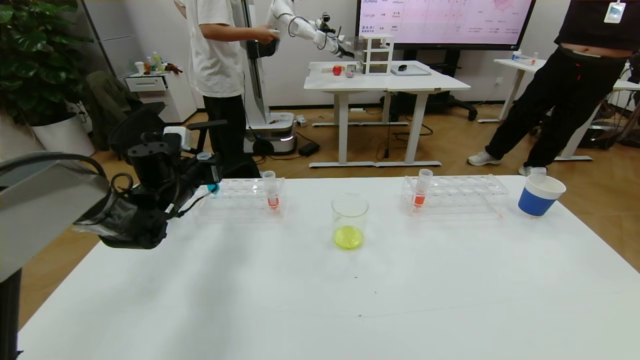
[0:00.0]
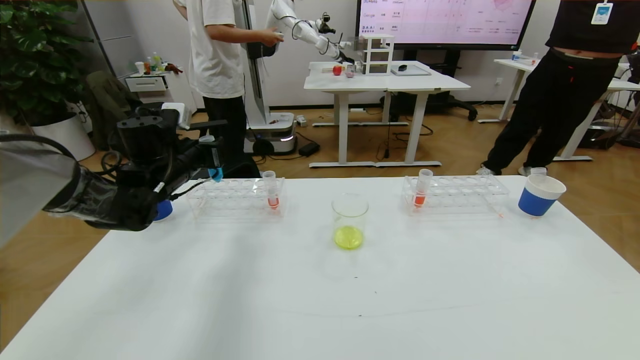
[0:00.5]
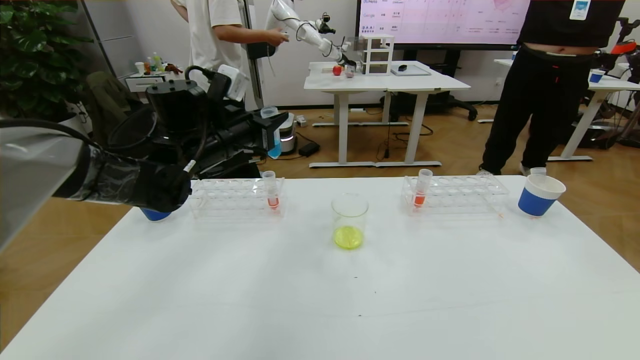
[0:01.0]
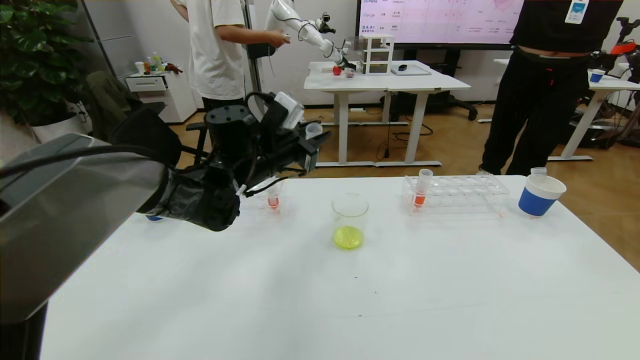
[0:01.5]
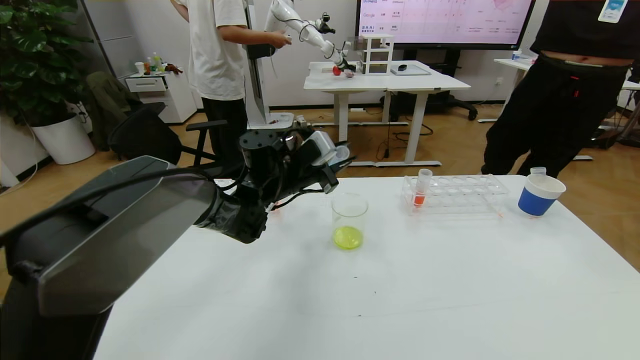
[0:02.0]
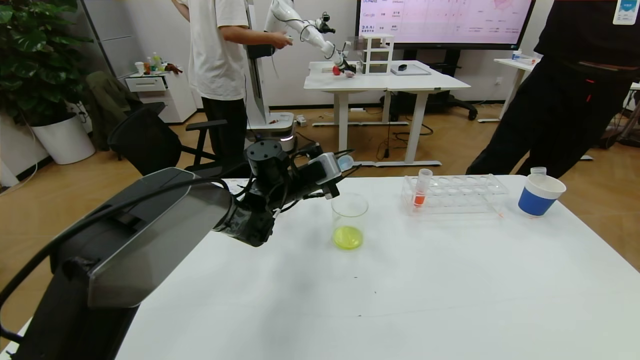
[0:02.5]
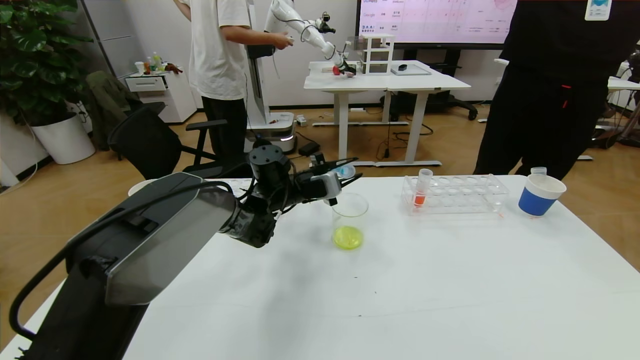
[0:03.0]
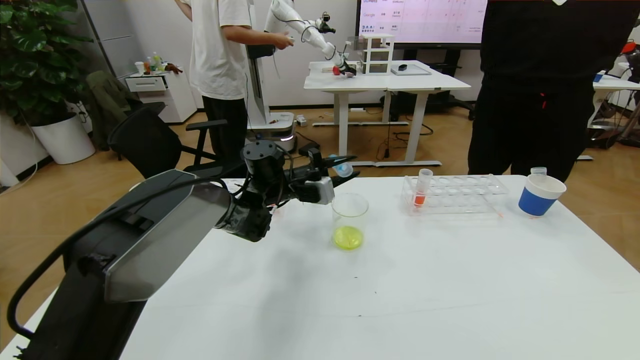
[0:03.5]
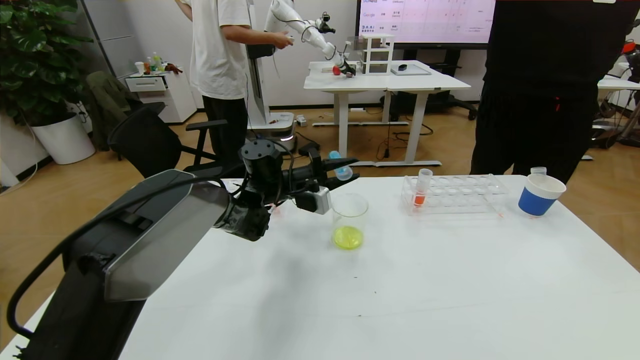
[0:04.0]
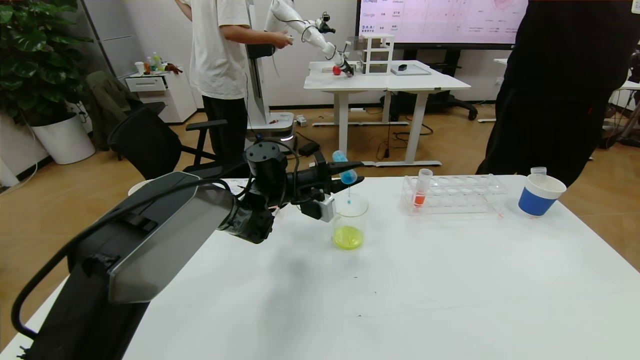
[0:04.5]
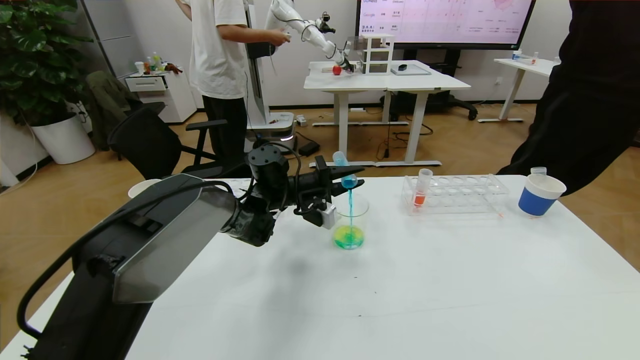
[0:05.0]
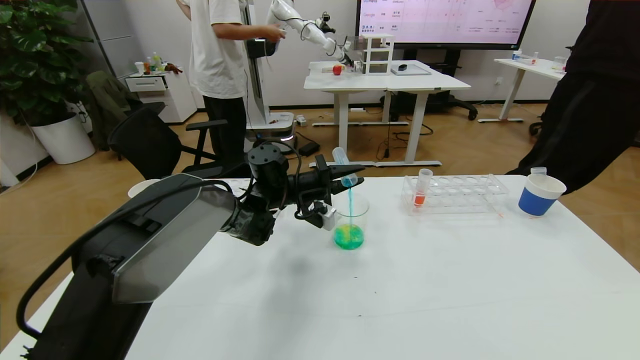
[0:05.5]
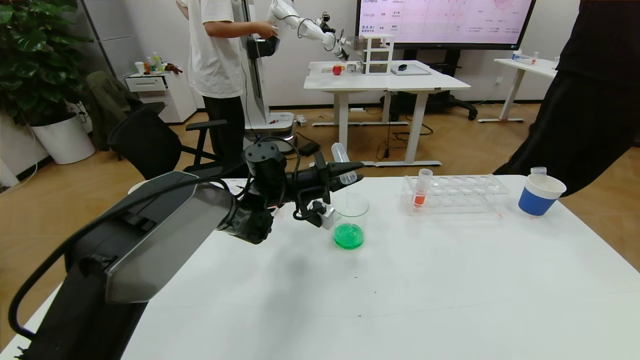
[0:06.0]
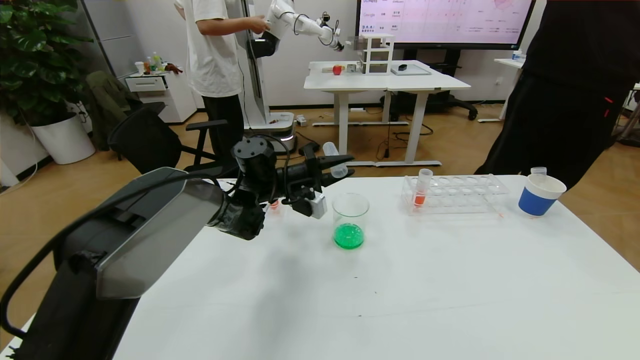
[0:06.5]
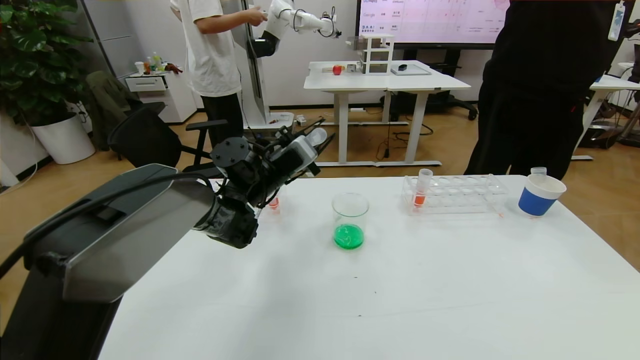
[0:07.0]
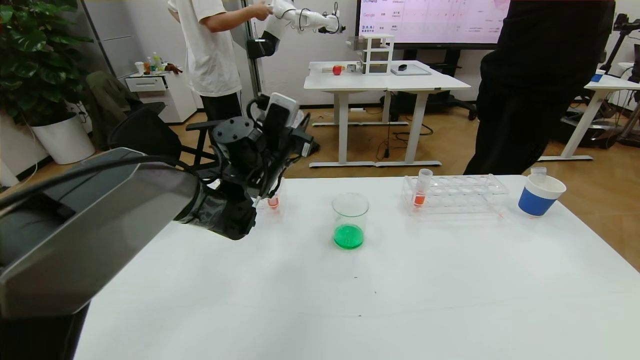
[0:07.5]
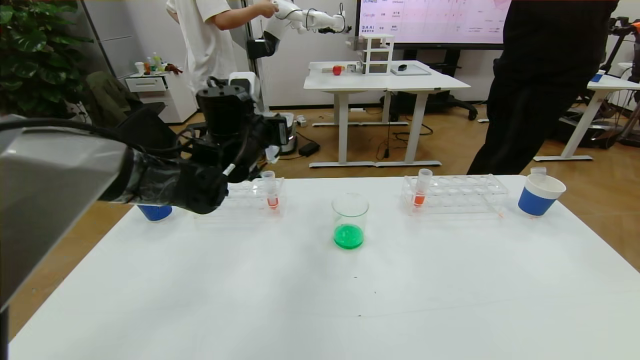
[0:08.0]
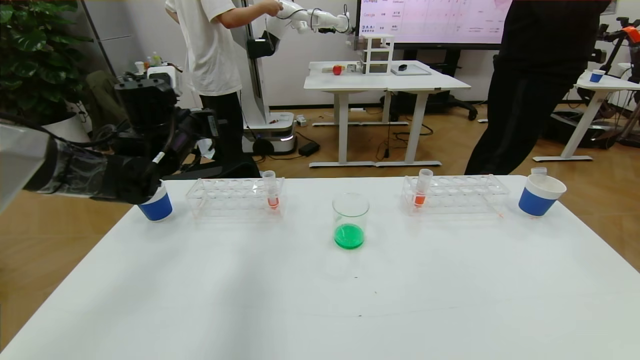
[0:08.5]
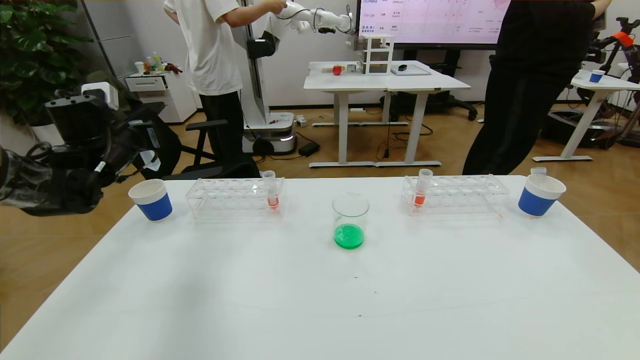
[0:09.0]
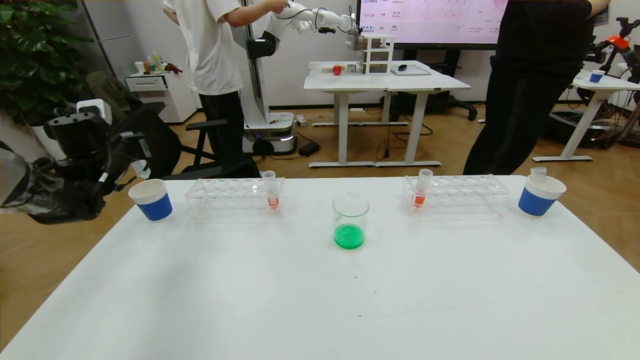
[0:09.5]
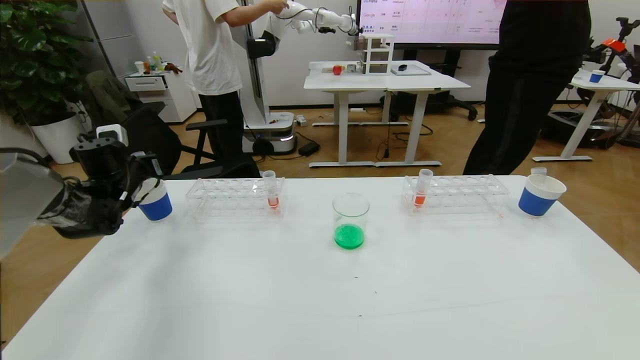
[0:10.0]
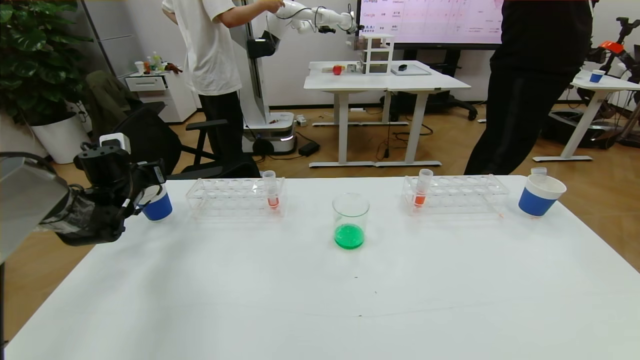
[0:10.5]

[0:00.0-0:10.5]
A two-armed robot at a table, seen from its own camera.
Task of the whole recording: pick up the test tube with yellow pigment and the test tube with blue pigment by grippers and pour them into the beaker.
0:00.0 to 0:02.0: The left gripper moves to the right, approximately 20 cm.
0:04.0 to 0:06.5: The grippers move only a little.
0:06.5 to 0:08.5: The left gripper heads to the left and upward, covering roughly 20 cm.
0:08.5 to 0:10.5: The left gripper travels to the left and downward by about 20 cm, and opens up.

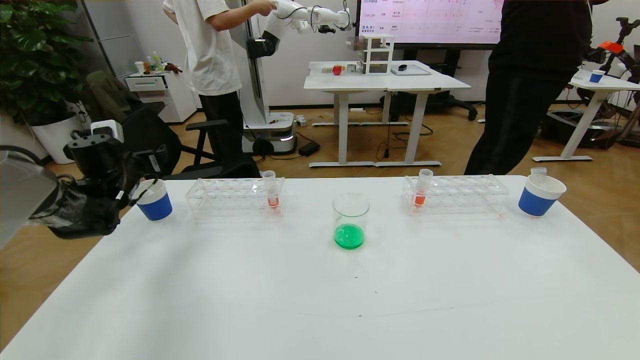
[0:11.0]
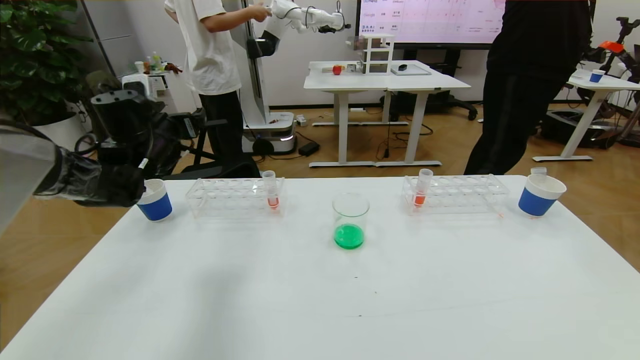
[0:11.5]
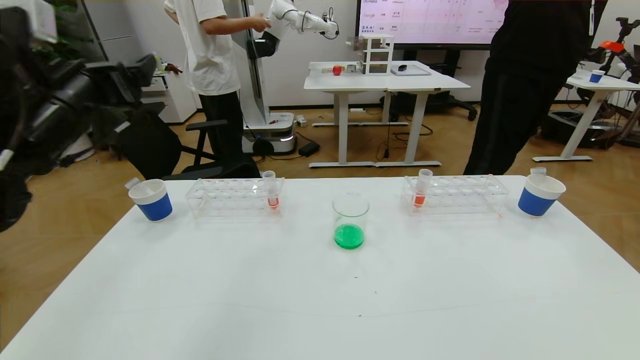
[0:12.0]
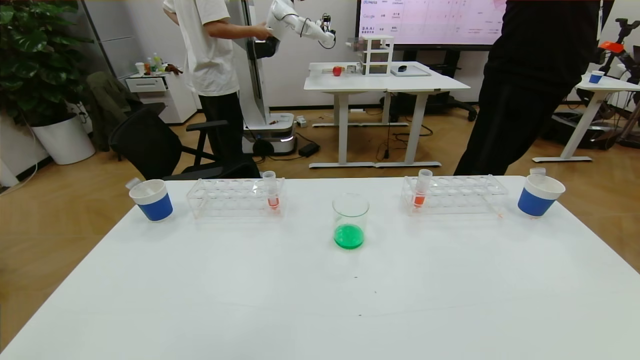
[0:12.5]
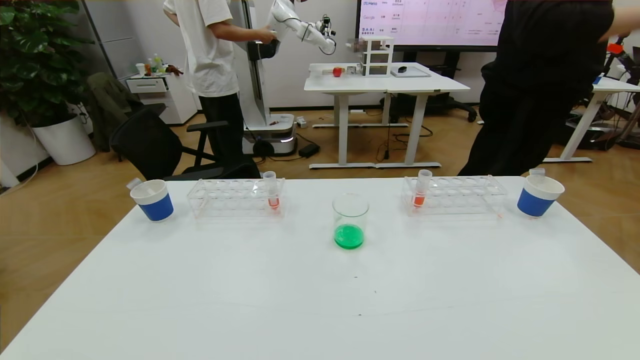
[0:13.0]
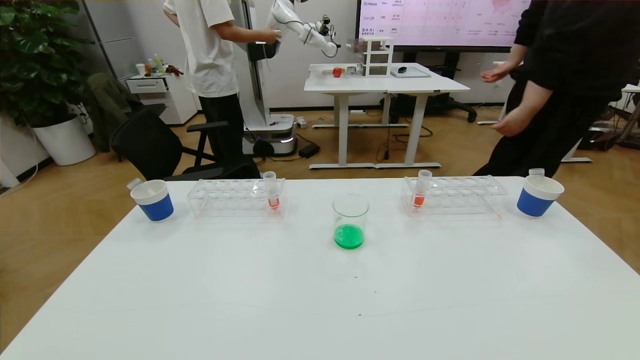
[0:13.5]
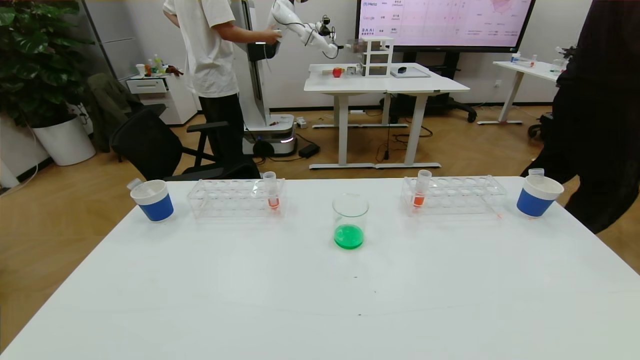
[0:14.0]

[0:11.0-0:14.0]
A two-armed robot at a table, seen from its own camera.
Task of the whole recording: pick up the test tube with yellow pigment and the test tube with blue pigment by grippers and pour them into the beaker.
0:11.0 to 0:12.5: The left gripper heads backward and upward, covering roughly 40 cm.
0:12.5 to 0:14.0: The left gripper goes roughly 30 cm downward and backward.
